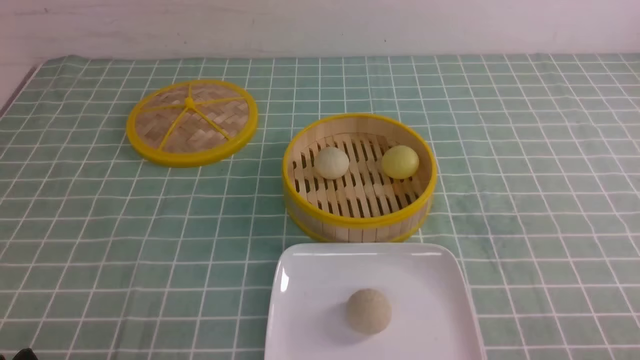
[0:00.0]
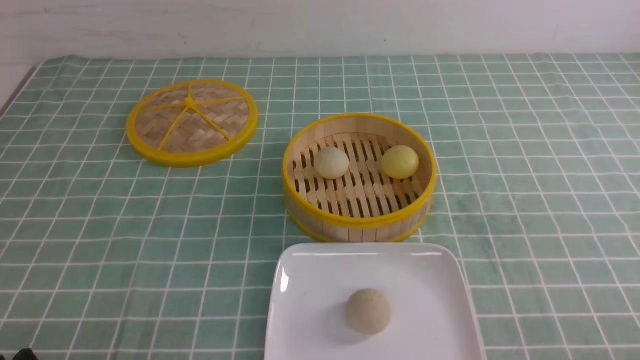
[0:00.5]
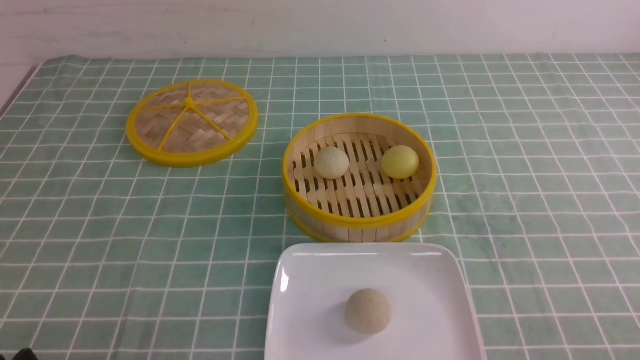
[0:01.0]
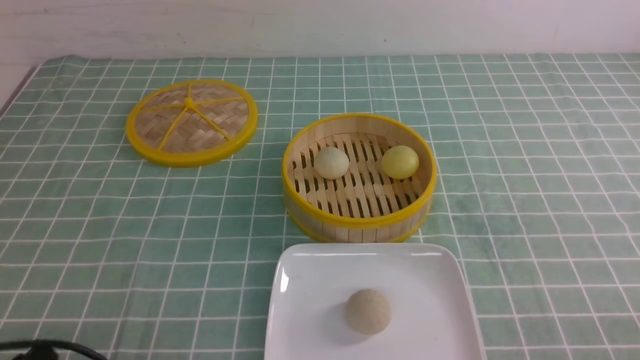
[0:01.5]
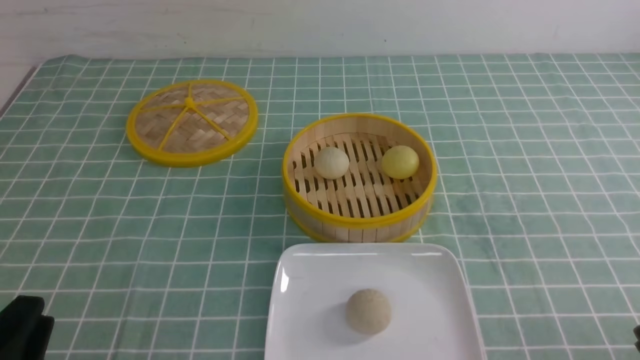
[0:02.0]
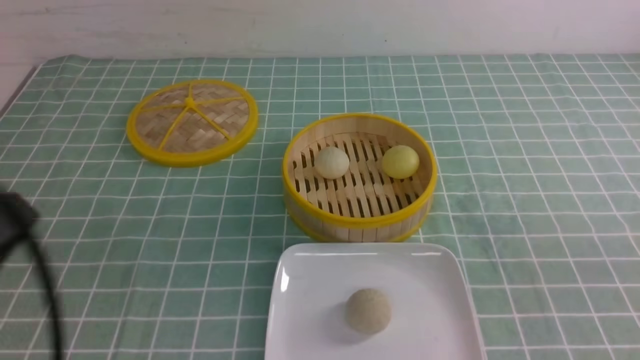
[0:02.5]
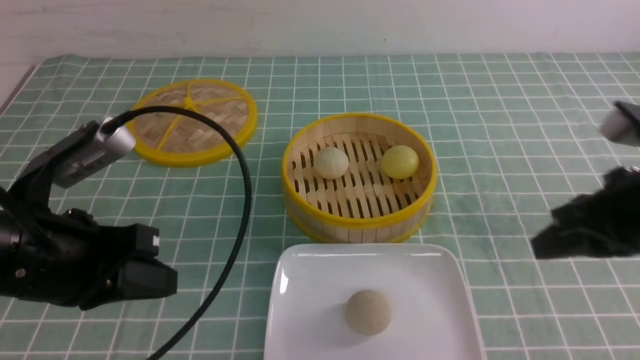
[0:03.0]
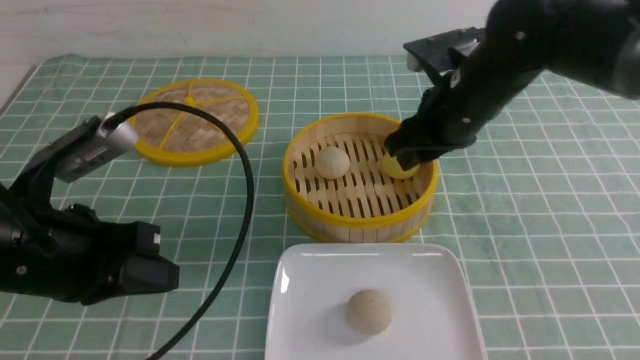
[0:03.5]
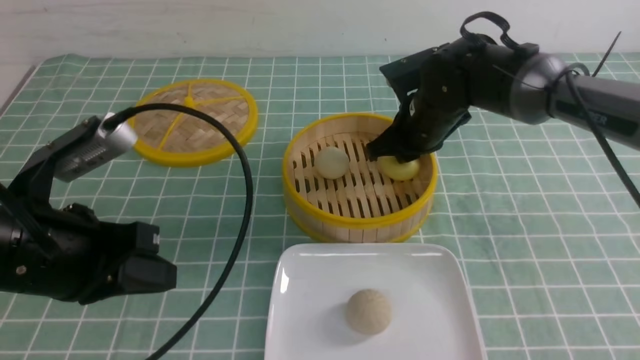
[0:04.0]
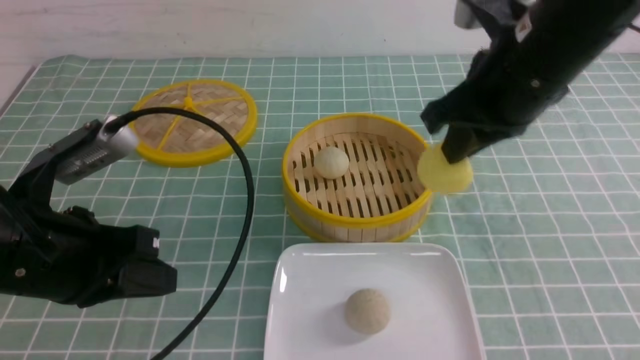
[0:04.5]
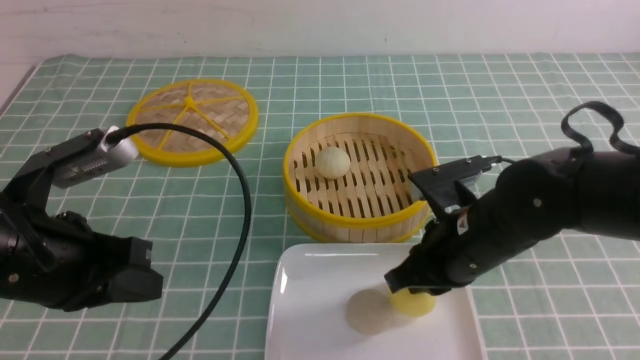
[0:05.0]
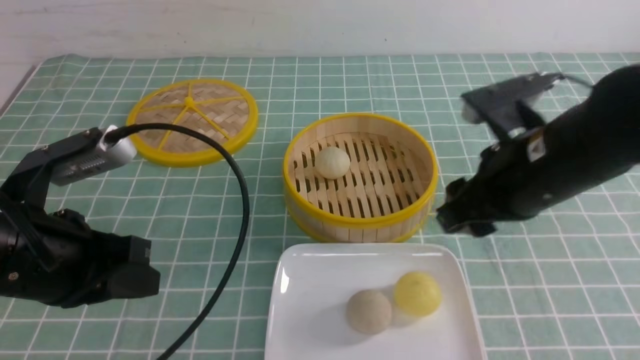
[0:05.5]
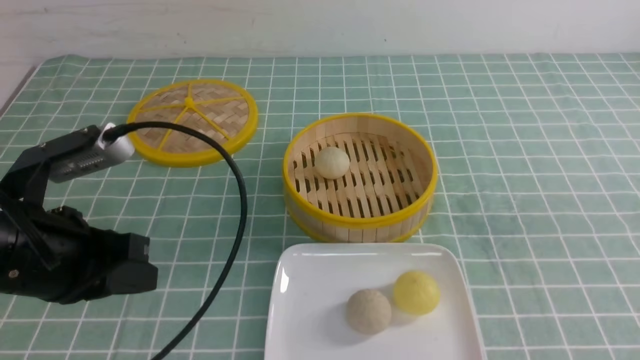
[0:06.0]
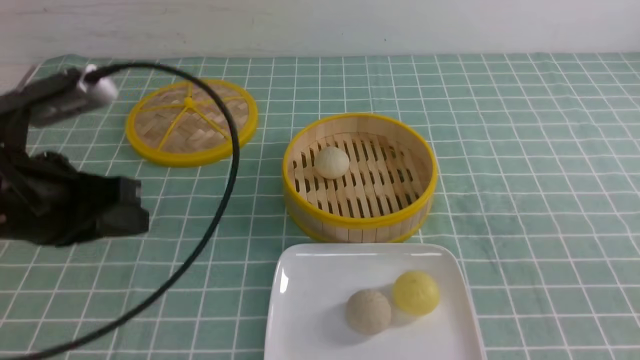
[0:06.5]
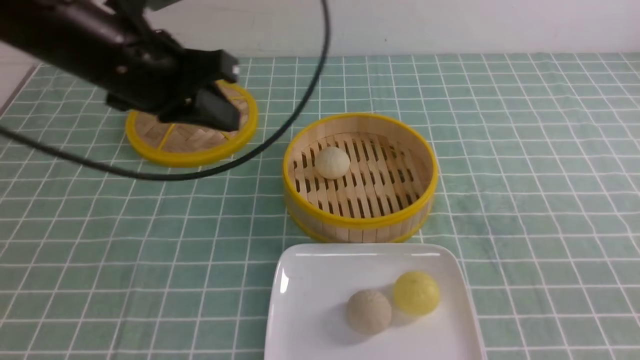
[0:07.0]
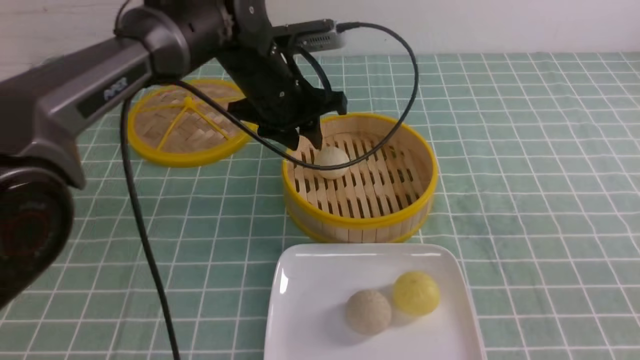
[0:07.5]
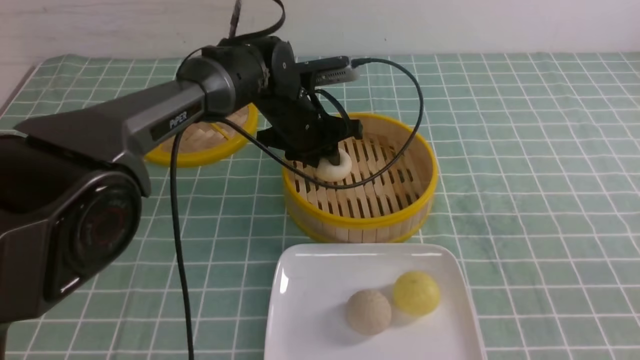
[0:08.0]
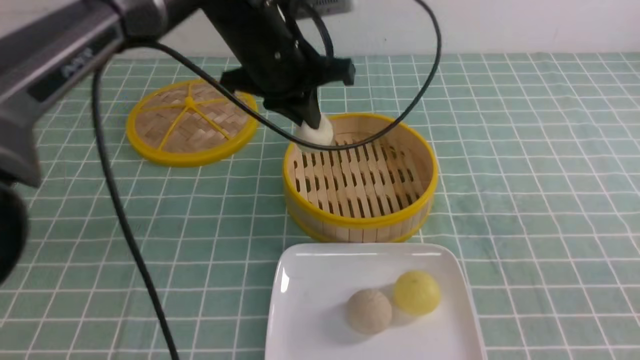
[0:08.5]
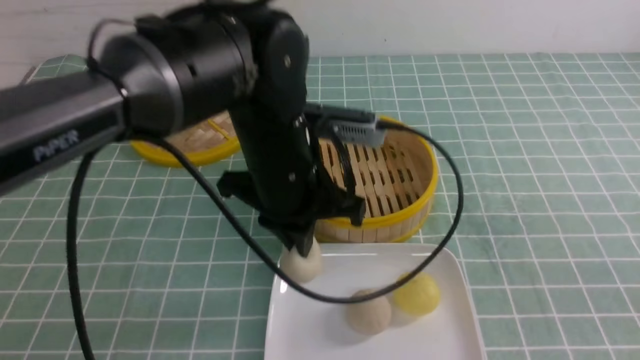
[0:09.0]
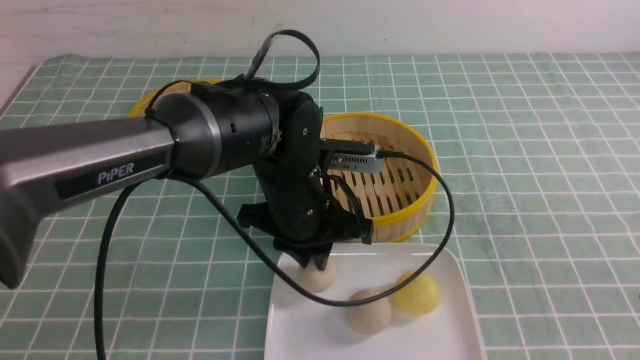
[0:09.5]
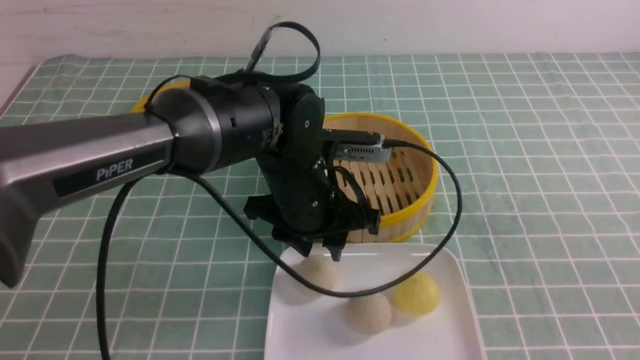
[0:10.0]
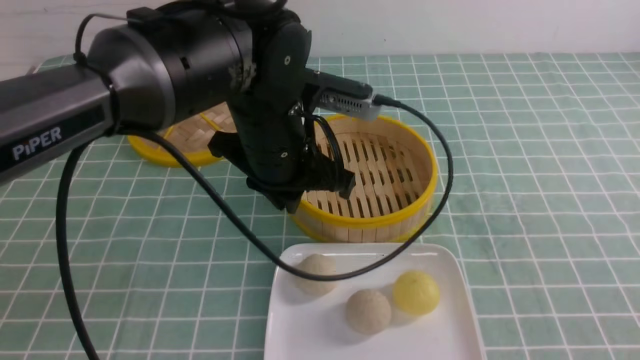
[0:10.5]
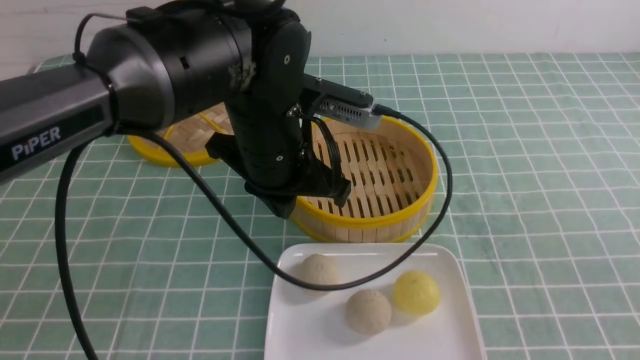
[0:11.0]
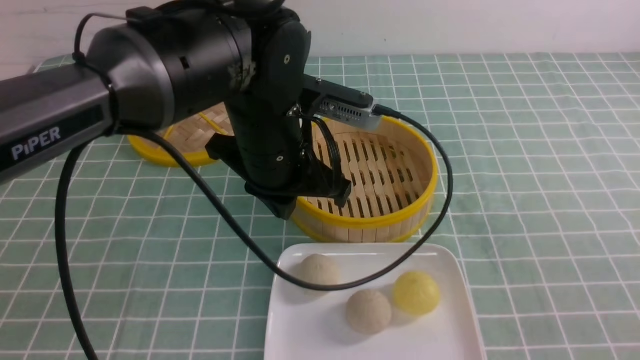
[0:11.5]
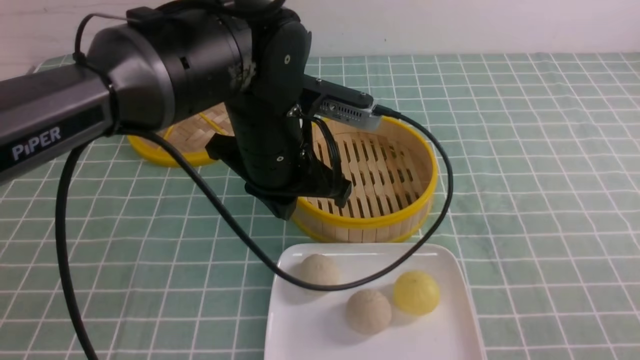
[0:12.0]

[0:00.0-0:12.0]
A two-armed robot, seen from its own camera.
Step, 0:00.0 to 0:04.0: use the right arm to grab the steamed stuffed bun that is closest to it.
Step, 0:04.5 to 0:05.0: use the right arm to put the steamed stuffed bun into the plate.
Step, 0:05.5 to 0:08.0: use the left arm to grab the steamed stuffed bun that is closest to it.
Step, 0:08.5 to 0:09.5: use the left arm to put the steamed stuffed bun into the plate.
0:02.0 to 0:04.0: The left gripper travels forward and upward by approximately 15 cm, and closes up, while the right gripper shifts about 40 cm forward and to the left.
0:04.0 to 0:06.0: The right gripper is displaced backward, upward and to the right by some 35 cm, and closes its fingers.
0:06.0 to 0:08.0: The right gripper travels downward by about 10 cm. Meanwhile the left gripper is displaced forward and to the right by about 30 cm, and opens.
0:08.0 to 0:10.0: The left gripper goes roughly 15 cm backward, and opens.
0:10.0 to 0:12.0: The right gripper travels downward by some 5 cm; the left gripper shifts about 5 cm upward, and closes its fingers.

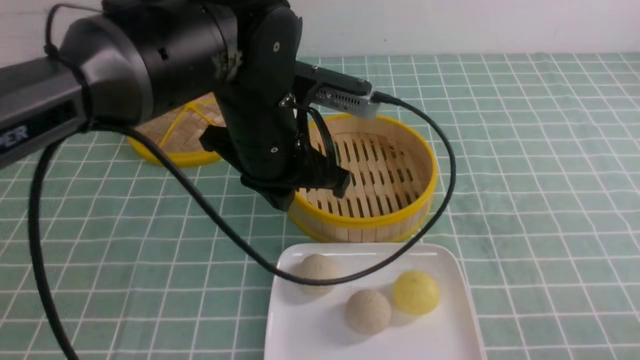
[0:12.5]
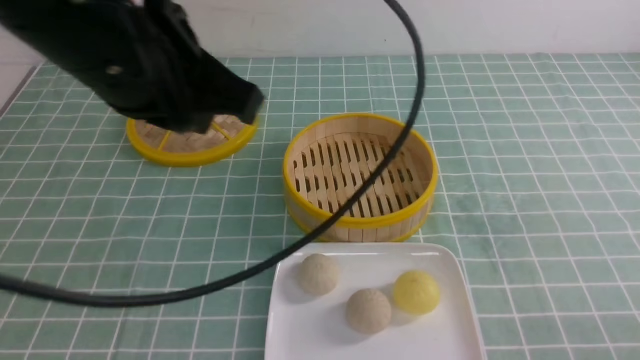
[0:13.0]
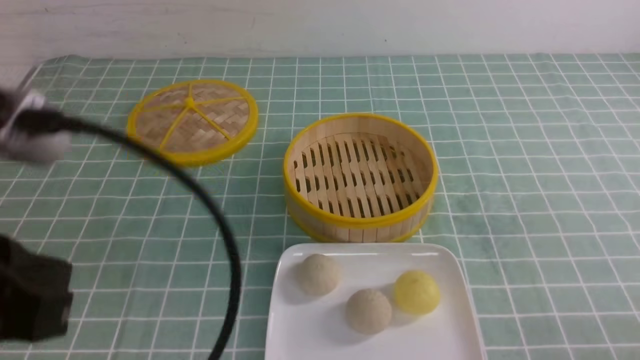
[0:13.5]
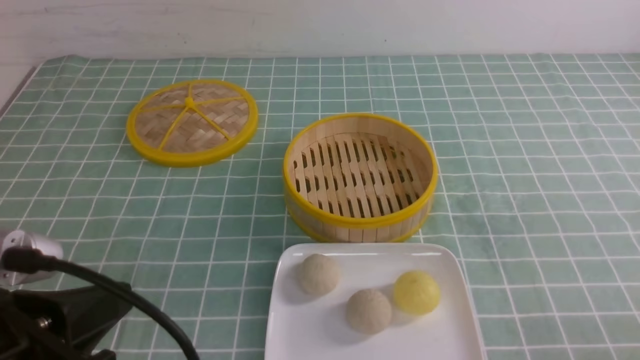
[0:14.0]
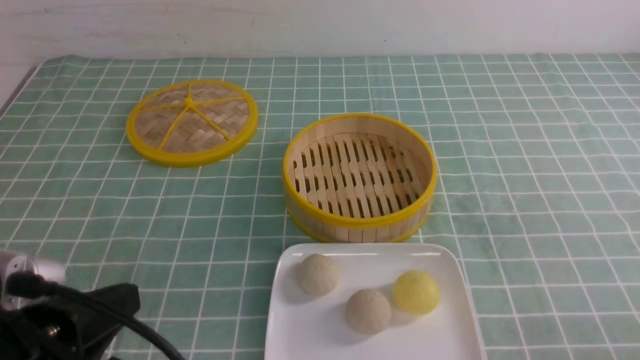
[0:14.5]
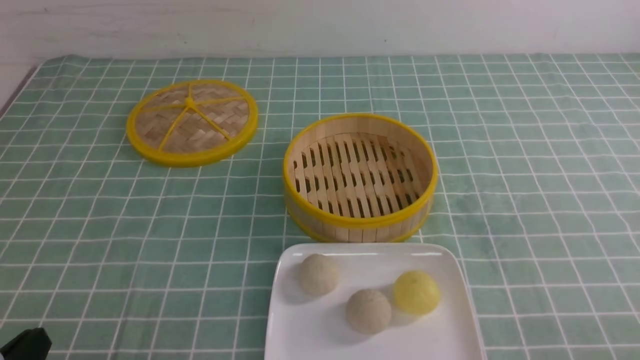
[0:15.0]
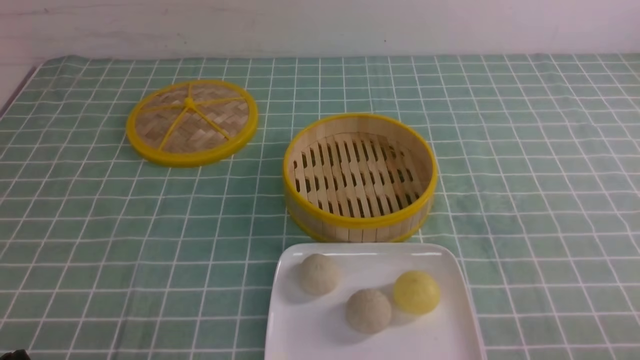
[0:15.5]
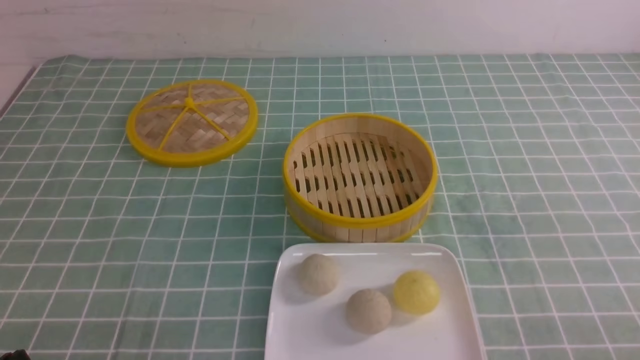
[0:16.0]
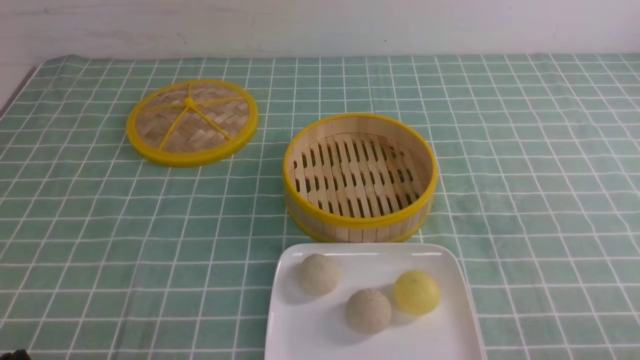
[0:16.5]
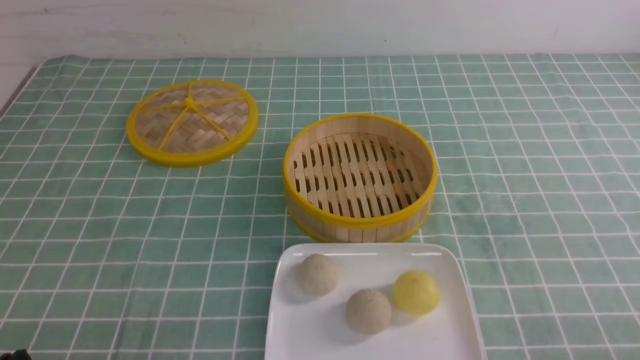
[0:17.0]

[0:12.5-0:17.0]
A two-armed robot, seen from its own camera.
0:12.5 to 0:14.5: The left gripper travels backward and to the left by about 25 cm.
0:14.5 to 0:17.0: The left gripper moves downward, approximately 10 cm.
